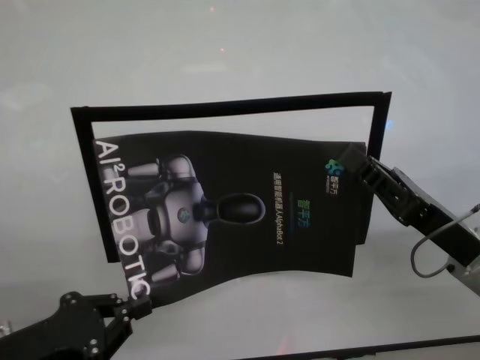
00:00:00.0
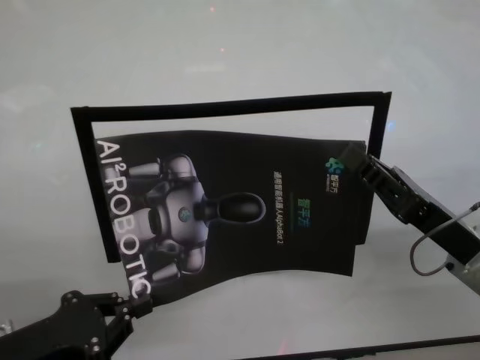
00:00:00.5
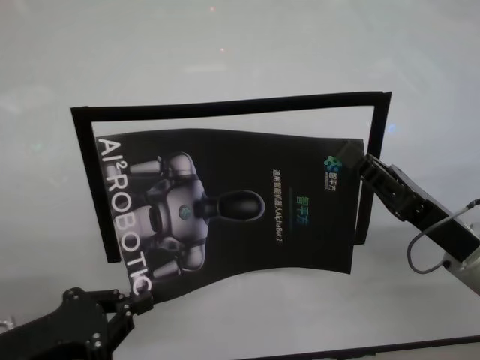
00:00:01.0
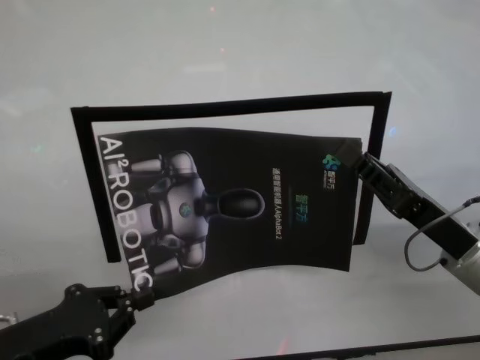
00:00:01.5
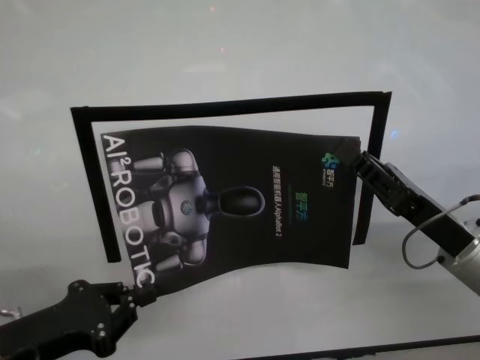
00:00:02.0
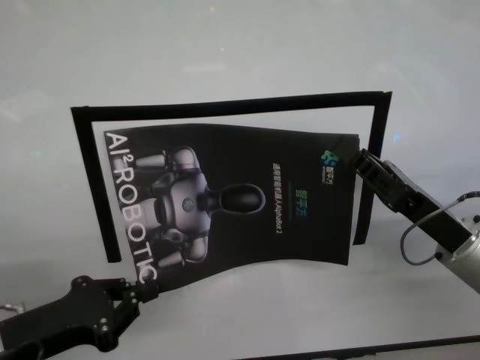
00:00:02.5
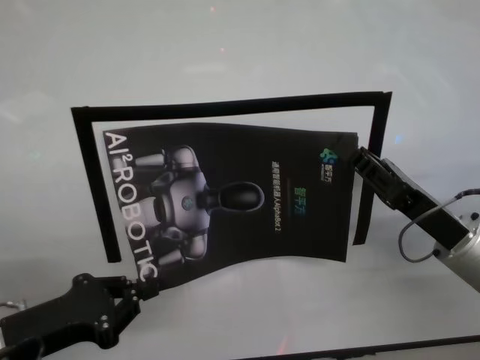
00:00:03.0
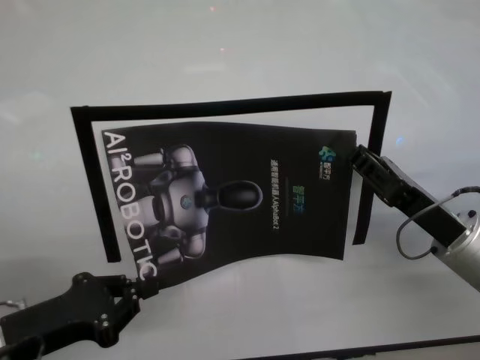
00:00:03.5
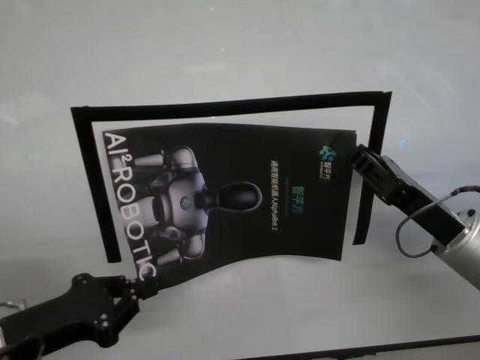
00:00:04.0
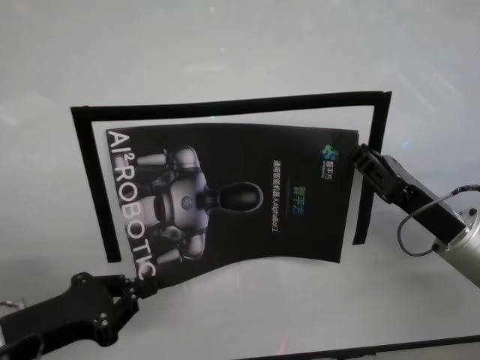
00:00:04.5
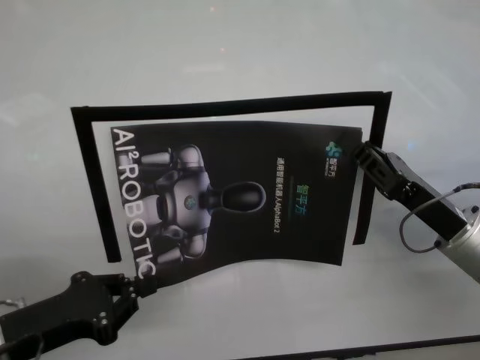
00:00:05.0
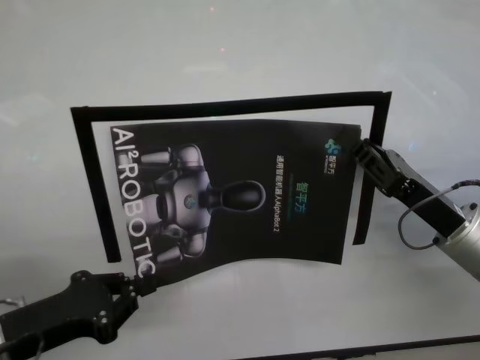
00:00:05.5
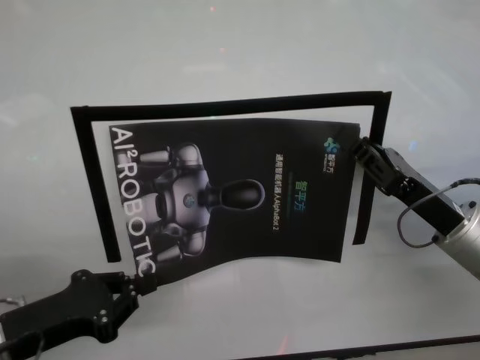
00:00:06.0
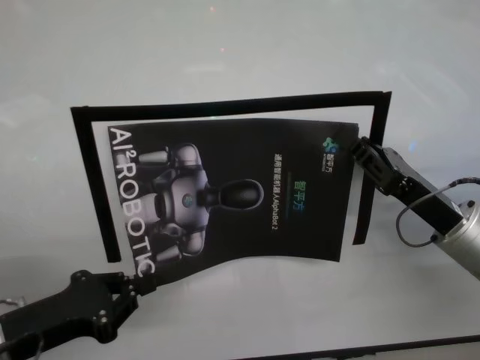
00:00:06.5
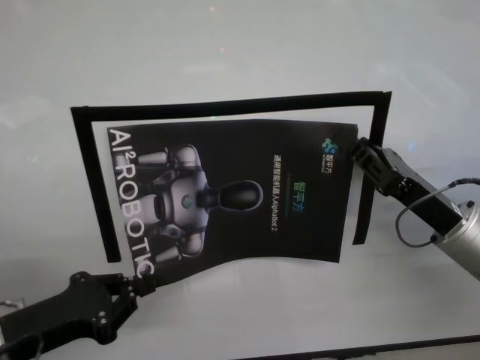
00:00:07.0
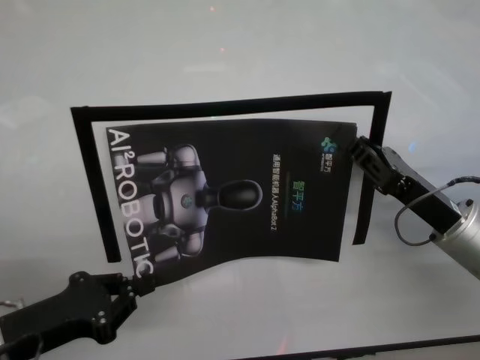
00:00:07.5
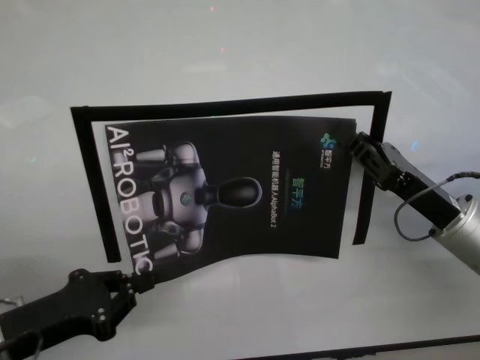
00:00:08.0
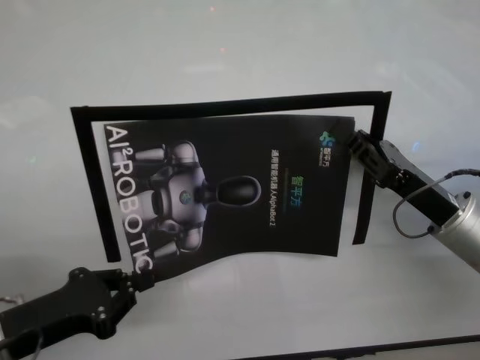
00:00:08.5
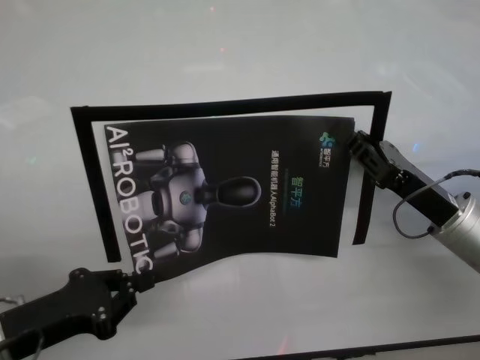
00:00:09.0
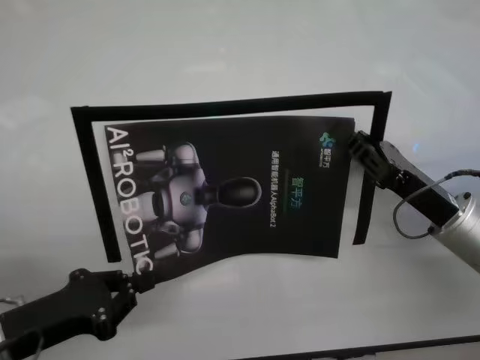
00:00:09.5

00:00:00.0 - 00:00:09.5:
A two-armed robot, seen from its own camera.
Task of the whole recording: stick the poster on the table by hand.
Step, 00:00:00.0 - 00:00:05.5: Stick the advertisement in the top-right corner area with both grippers.

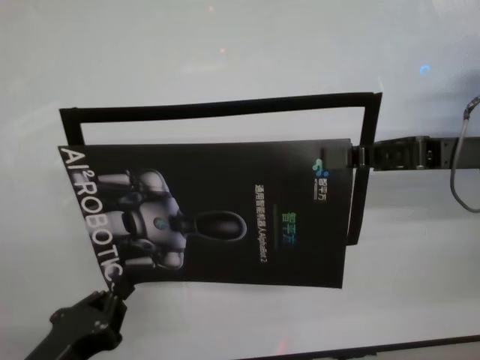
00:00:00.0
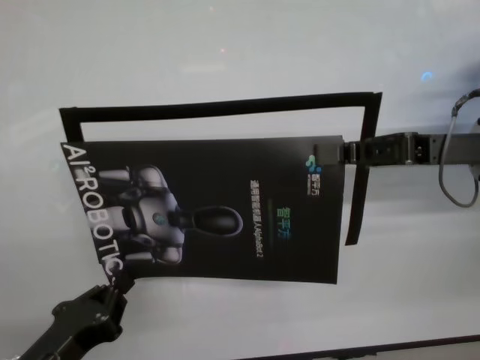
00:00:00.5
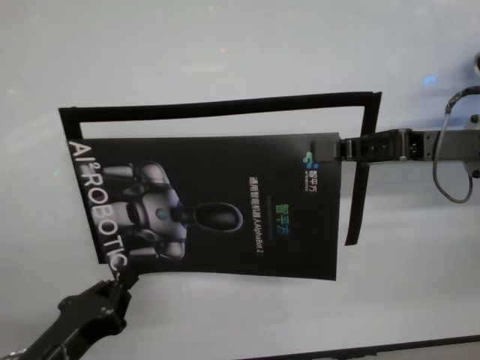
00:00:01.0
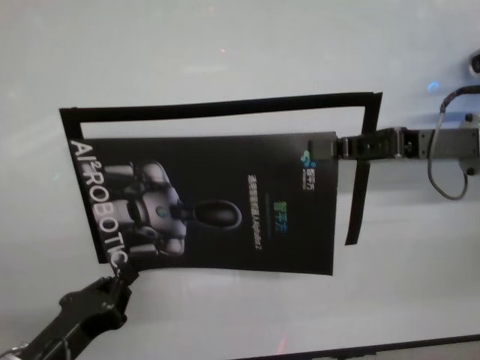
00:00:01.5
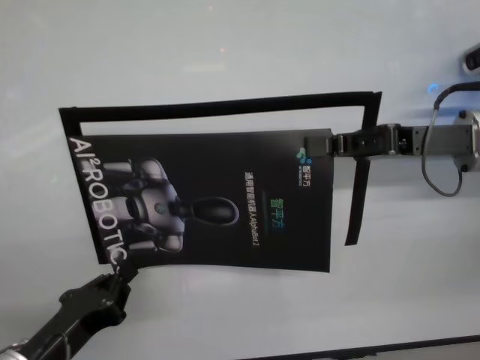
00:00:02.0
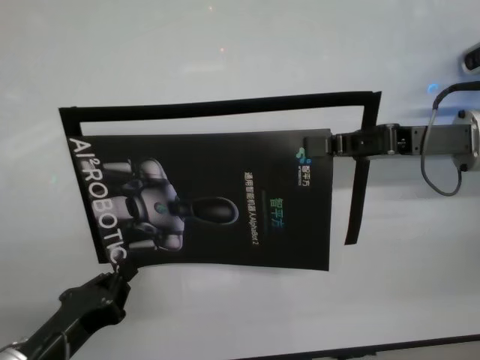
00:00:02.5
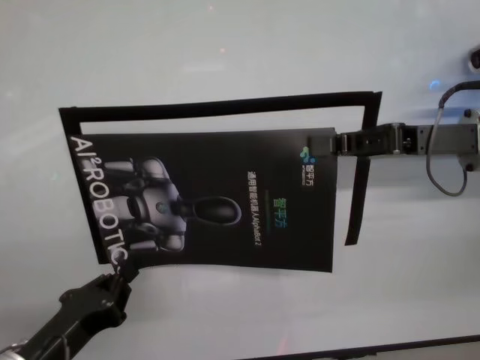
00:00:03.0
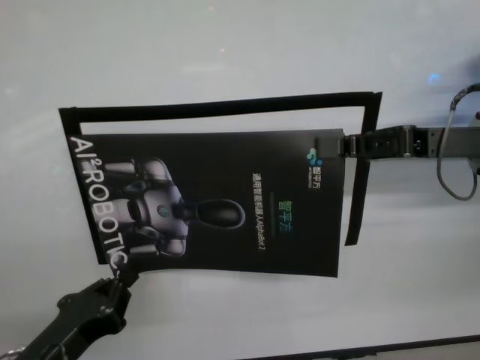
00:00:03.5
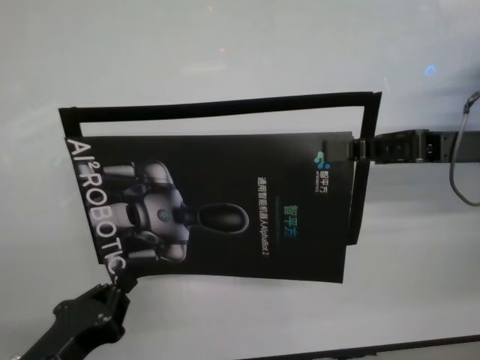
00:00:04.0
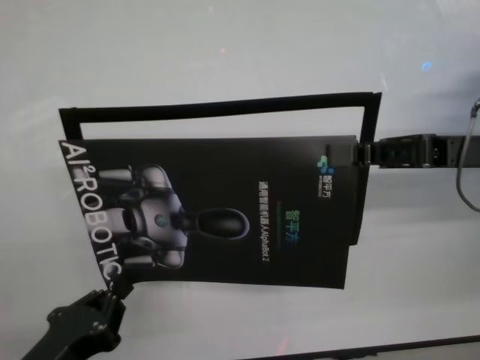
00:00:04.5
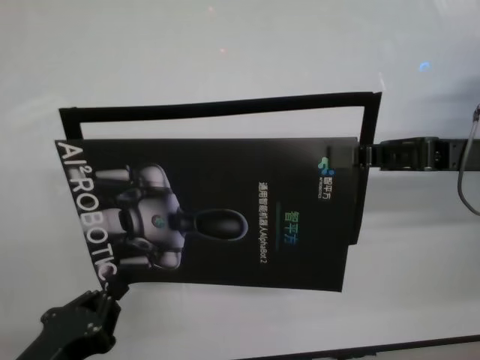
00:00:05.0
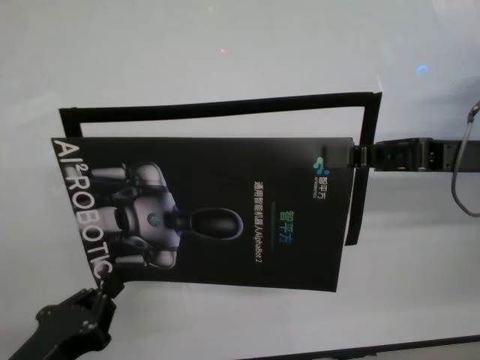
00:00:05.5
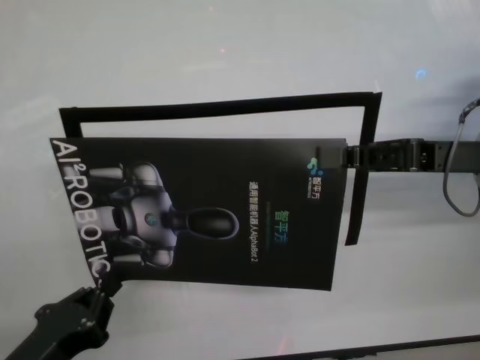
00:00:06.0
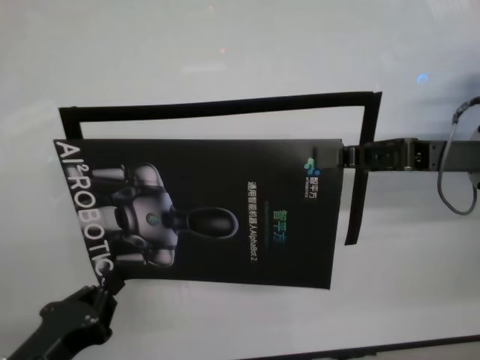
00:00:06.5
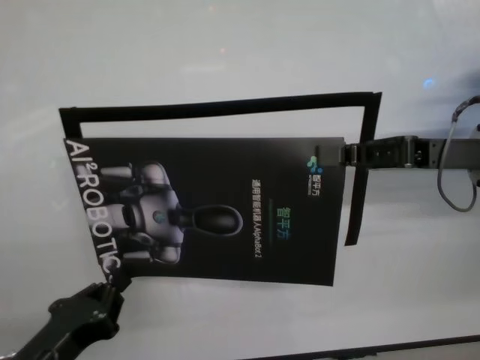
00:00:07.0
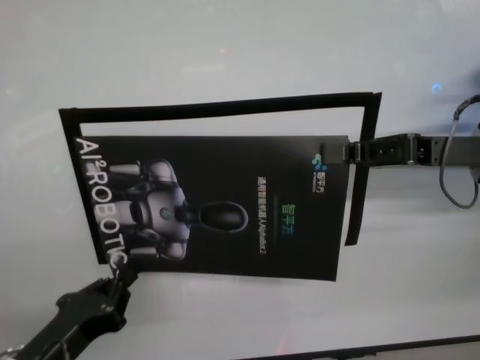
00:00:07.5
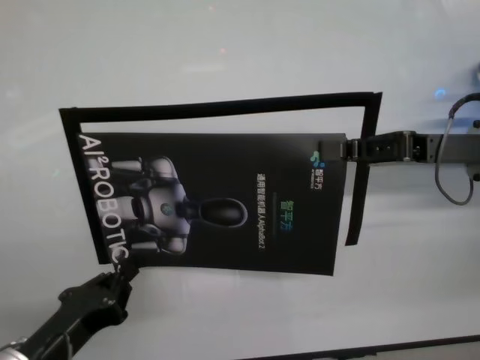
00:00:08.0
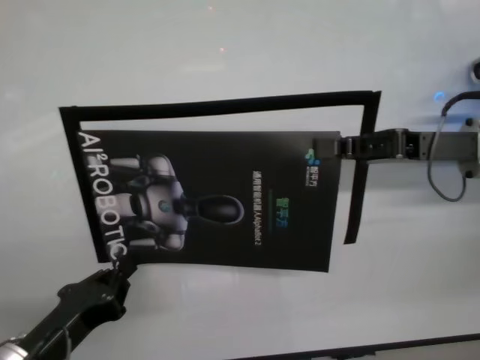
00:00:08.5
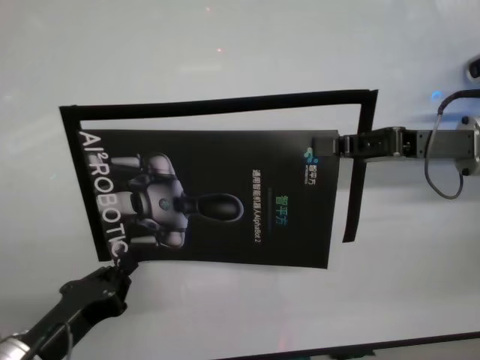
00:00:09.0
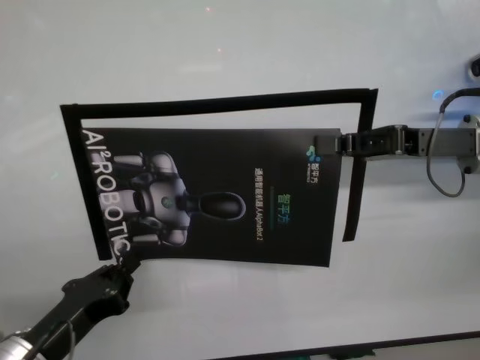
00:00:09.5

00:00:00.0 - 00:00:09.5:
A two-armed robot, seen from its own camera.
Task of the whole recording: stick the poster on the table by hand.
Step, 00:00:00.0 - 00:00:08.5: Stick the advertisement in the top-right corner area with both grippers.
